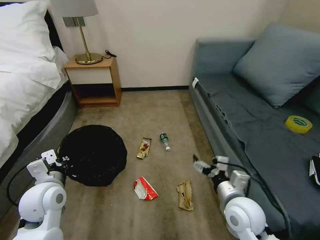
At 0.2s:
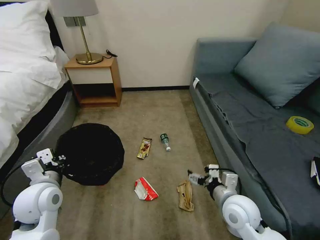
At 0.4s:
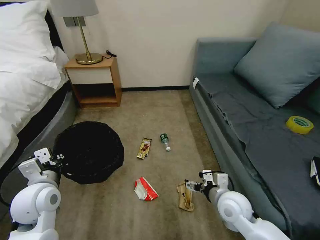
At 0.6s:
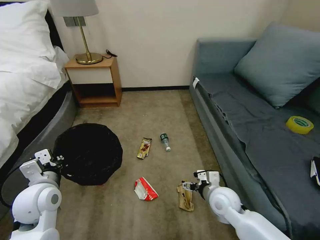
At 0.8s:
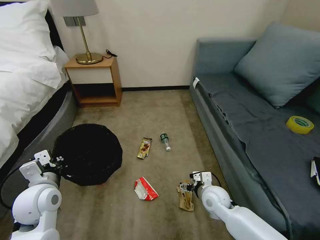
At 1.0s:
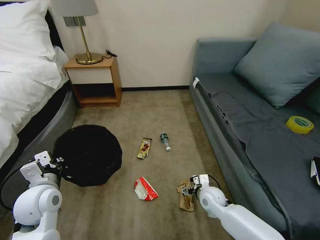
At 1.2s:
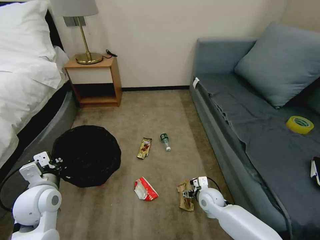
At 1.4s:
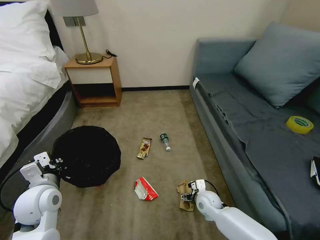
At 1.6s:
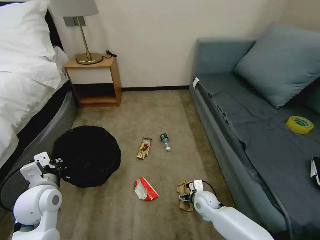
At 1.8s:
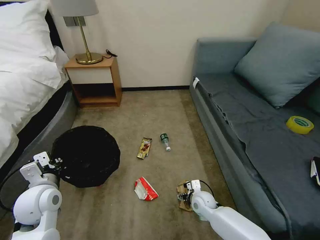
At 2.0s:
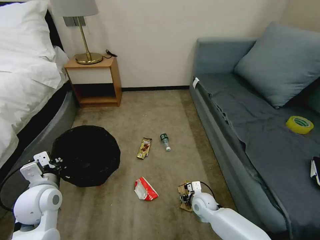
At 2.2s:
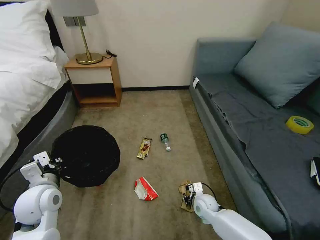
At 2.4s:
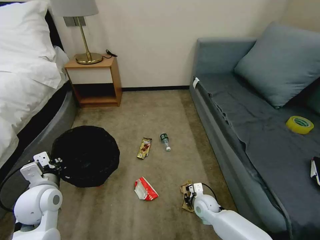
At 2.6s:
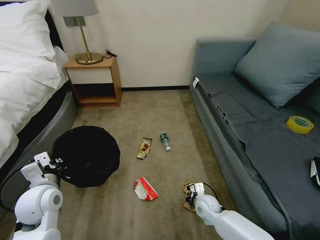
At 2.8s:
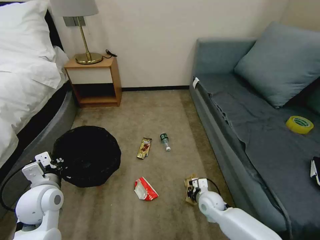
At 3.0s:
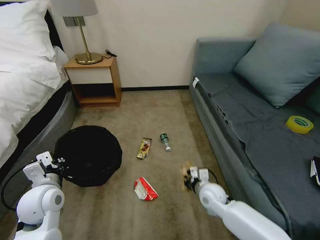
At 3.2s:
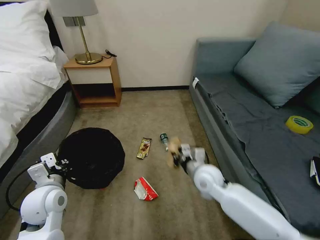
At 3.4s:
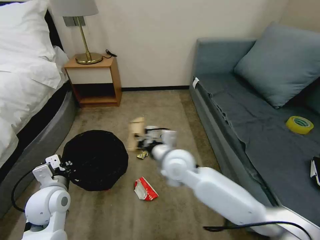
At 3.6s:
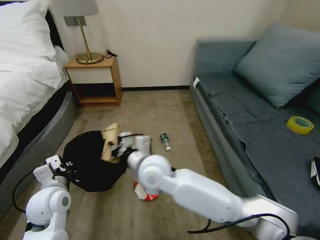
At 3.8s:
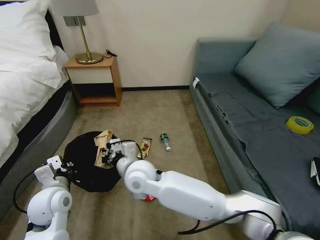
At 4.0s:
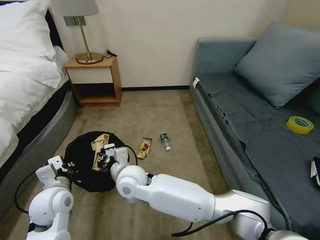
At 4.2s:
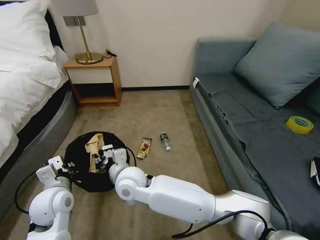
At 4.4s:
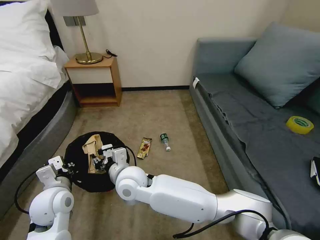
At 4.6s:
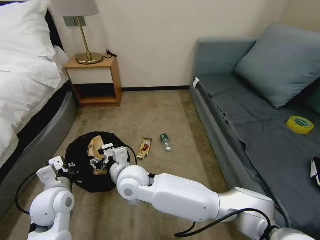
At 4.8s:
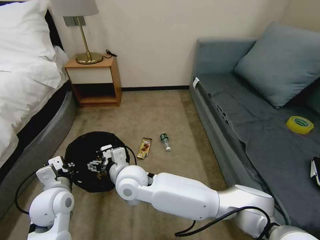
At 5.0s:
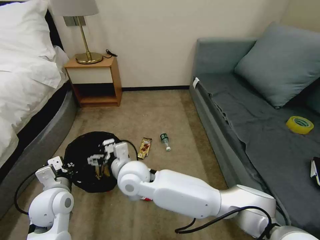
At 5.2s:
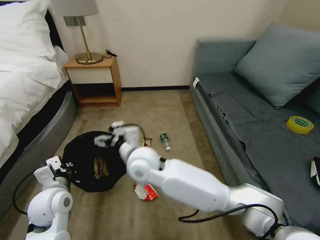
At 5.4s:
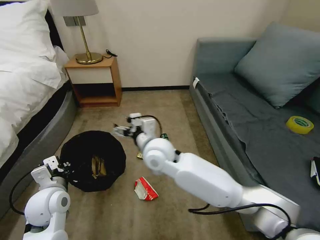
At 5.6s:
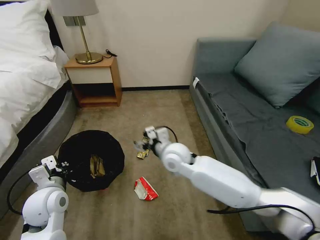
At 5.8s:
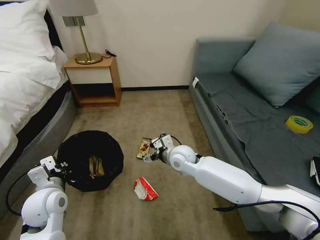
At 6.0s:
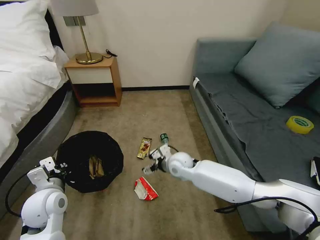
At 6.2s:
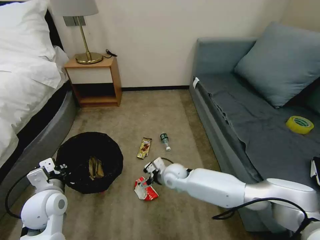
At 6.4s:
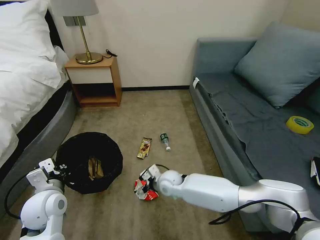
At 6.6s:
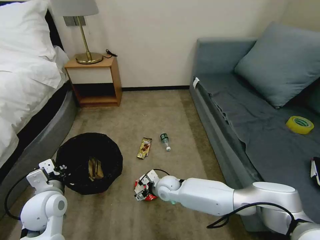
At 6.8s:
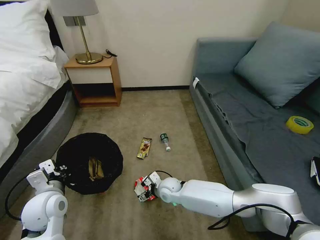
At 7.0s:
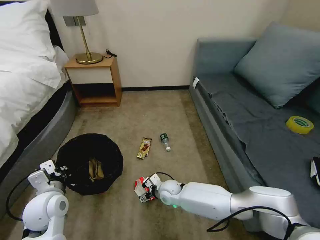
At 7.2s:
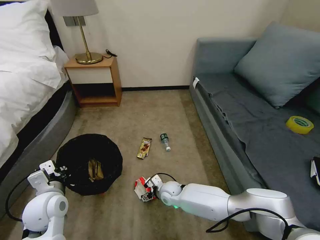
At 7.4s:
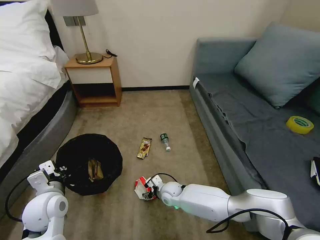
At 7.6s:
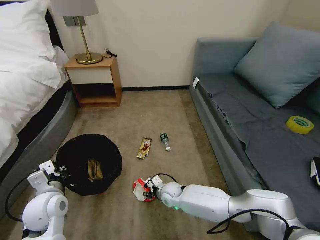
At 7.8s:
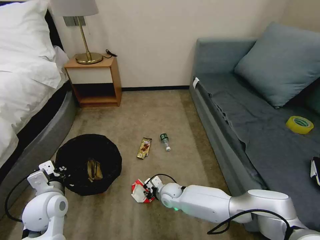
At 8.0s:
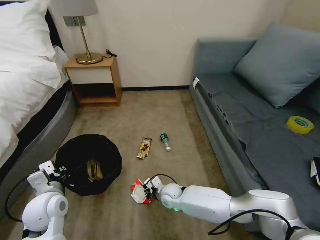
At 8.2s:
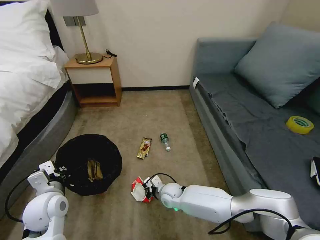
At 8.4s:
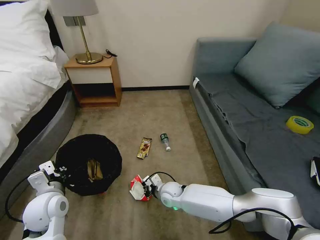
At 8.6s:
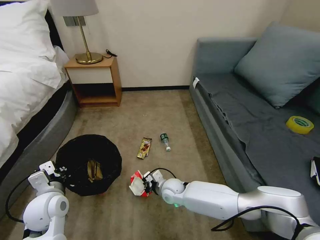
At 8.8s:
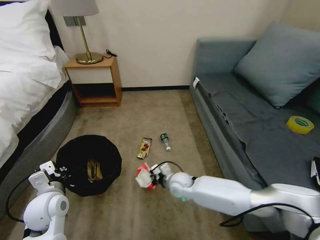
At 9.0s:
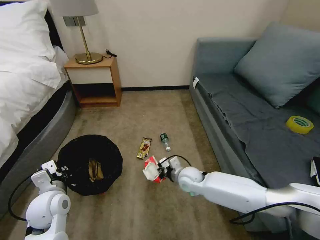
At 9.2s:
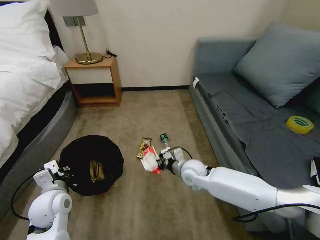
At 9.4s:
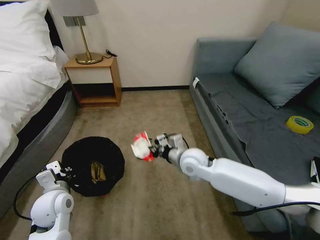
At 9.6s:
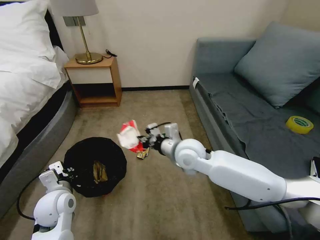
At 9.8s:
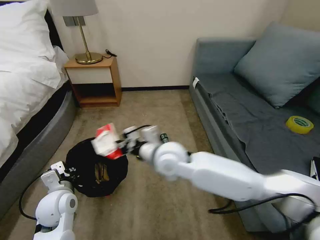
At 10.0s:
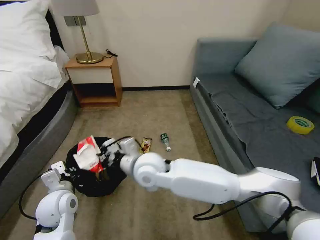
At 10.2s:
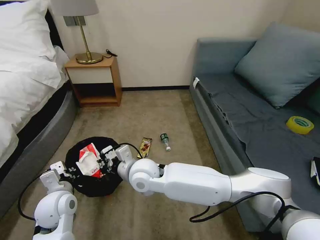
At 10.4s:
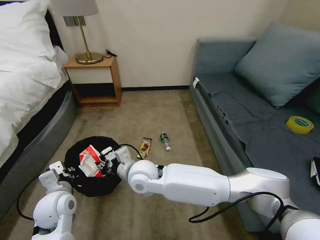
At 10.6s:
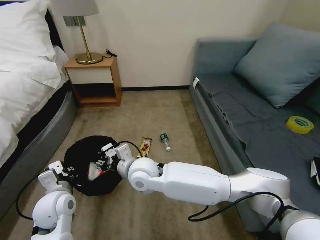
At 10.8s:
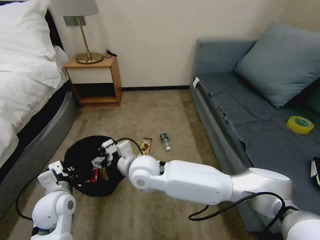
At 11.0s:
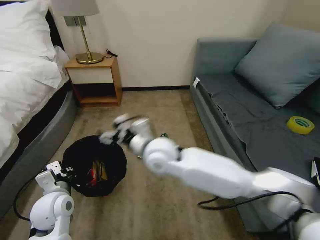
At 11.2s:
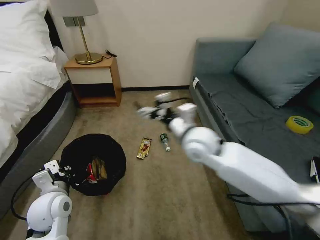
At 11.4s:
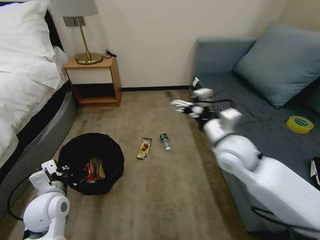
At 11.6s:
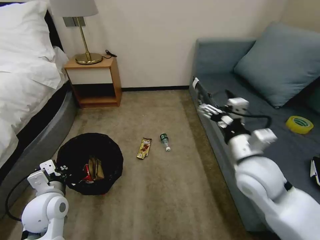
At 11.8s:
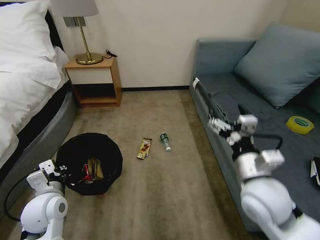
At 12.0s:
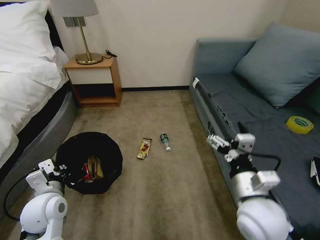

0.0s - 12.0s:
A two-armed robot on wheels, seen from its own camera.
Task of the whole recording: Pick up the trash bin, then pick up the garbage on the floor and place it into the trash bin.
0.0s - 1.6s: The right gripper shifts some 20 cm downward and forward.
1.6s - 3.0s: The right gripper heads upward, covering about 10 cm, and closes.
3.0s - 4.4s: The right gripper travels to the left and upward by some 30 cm, and opens.
4.4s - 6.0s: The right gripper heads to the right, forward and downward, covering some 20 cm, and opens its fingers.
6.0s - 7.6s: The right gripper is displaced downward by about 15 cm, and closes its fingers.
7.6s - 9.0s: The right gripper moves upward and to the right, roughly 10 cm, and closes its fingers.
9.0s - 10.4s: The right gripper is displaced to the left and upward by some 20 cm.
10.4s - 12.0s: The right gripper heads to the right and backward, covering about 30 cm, and opens up.

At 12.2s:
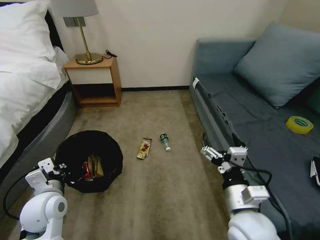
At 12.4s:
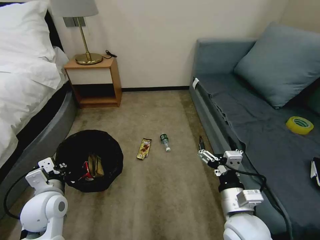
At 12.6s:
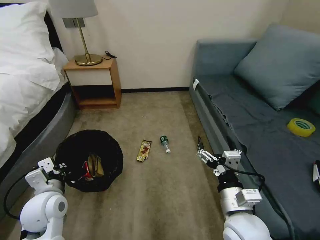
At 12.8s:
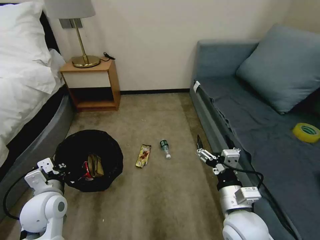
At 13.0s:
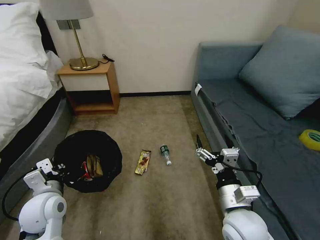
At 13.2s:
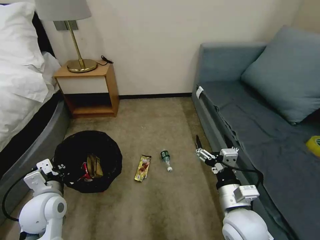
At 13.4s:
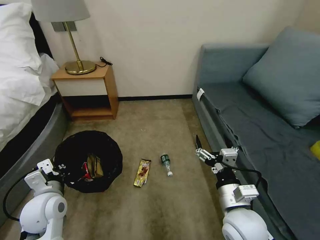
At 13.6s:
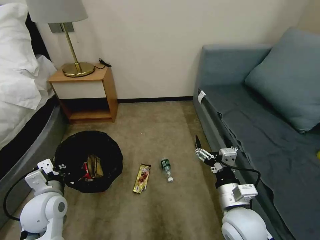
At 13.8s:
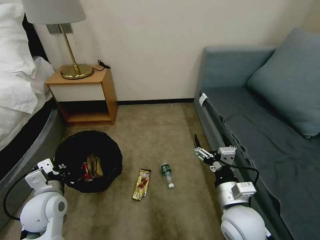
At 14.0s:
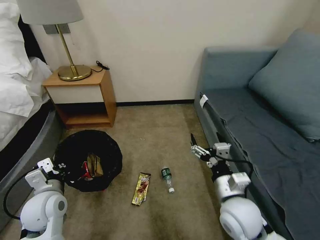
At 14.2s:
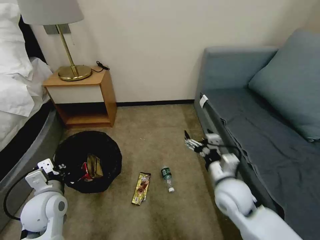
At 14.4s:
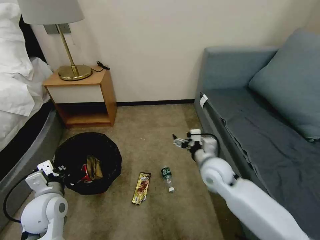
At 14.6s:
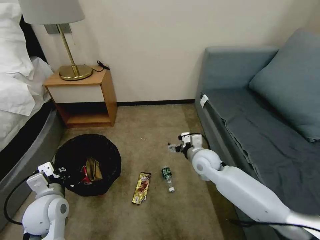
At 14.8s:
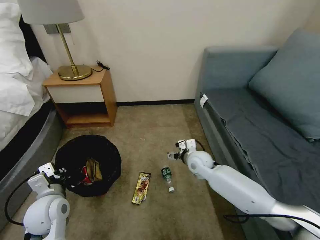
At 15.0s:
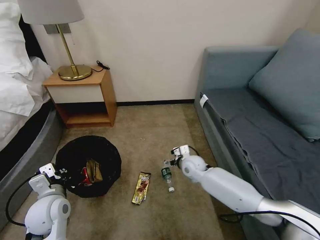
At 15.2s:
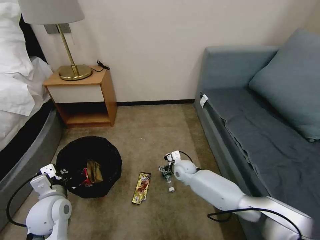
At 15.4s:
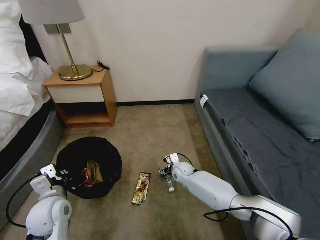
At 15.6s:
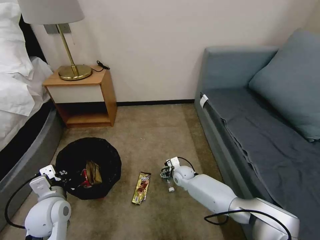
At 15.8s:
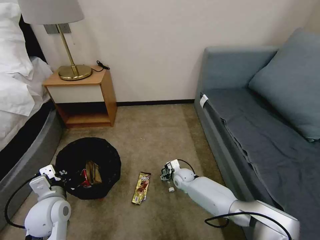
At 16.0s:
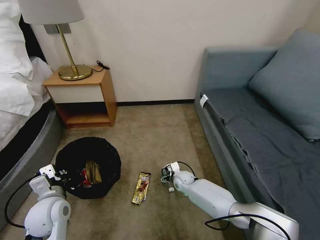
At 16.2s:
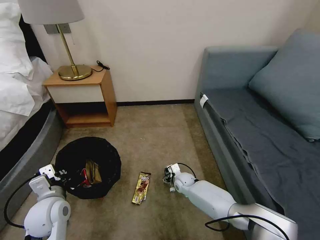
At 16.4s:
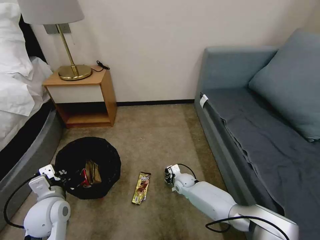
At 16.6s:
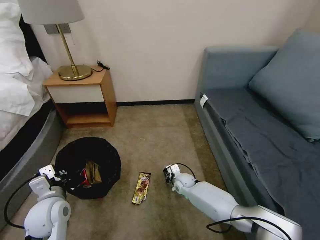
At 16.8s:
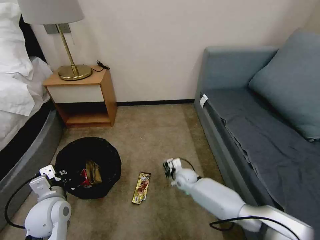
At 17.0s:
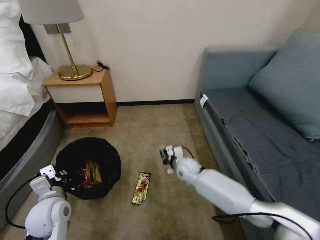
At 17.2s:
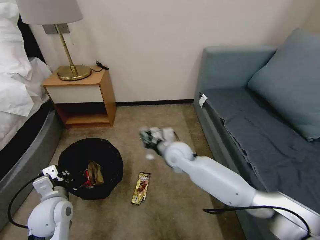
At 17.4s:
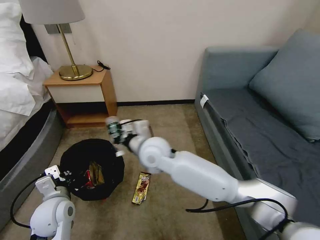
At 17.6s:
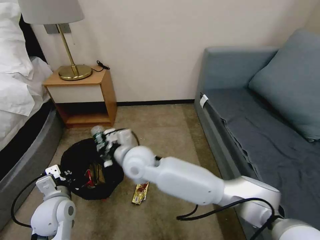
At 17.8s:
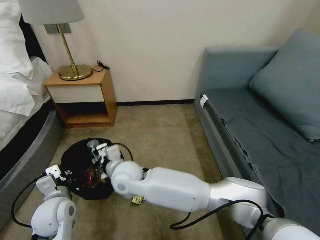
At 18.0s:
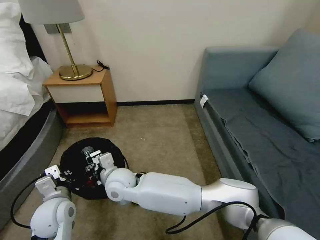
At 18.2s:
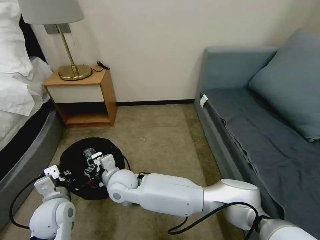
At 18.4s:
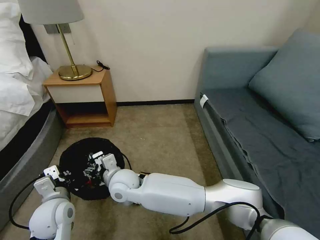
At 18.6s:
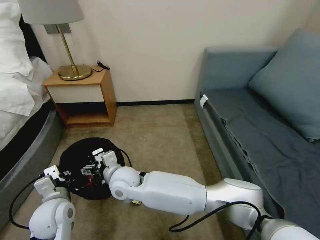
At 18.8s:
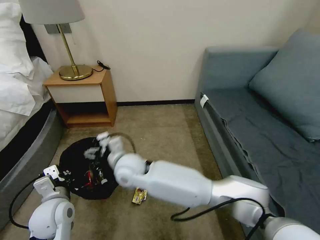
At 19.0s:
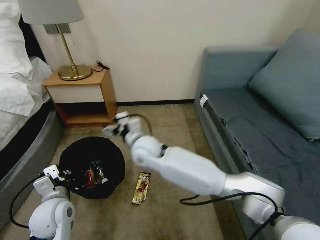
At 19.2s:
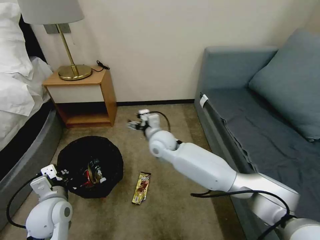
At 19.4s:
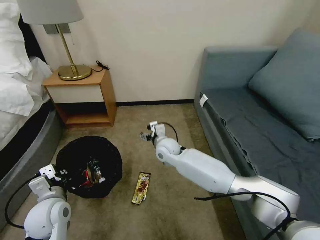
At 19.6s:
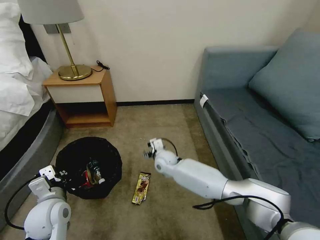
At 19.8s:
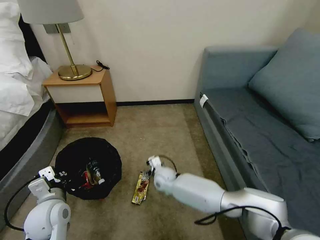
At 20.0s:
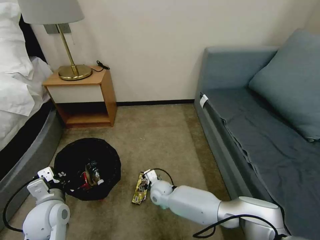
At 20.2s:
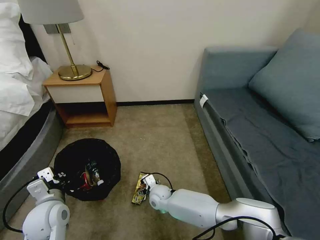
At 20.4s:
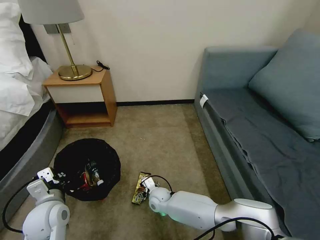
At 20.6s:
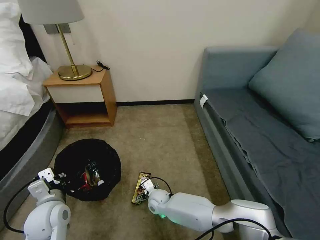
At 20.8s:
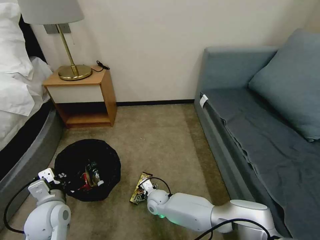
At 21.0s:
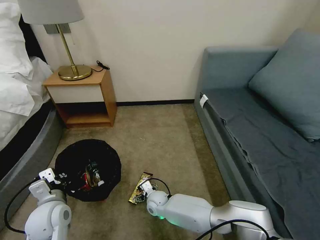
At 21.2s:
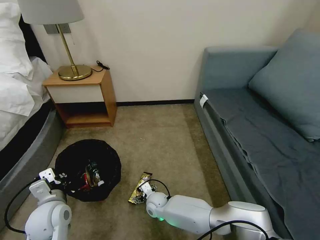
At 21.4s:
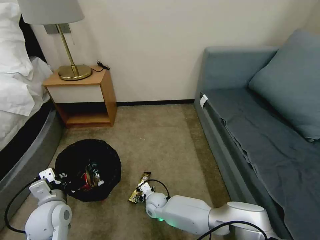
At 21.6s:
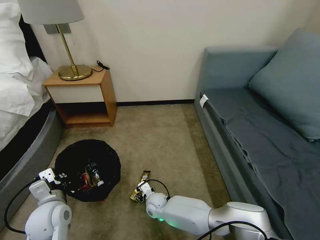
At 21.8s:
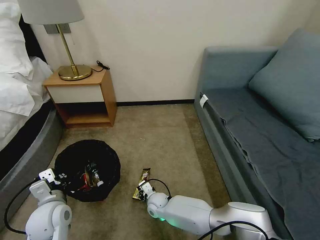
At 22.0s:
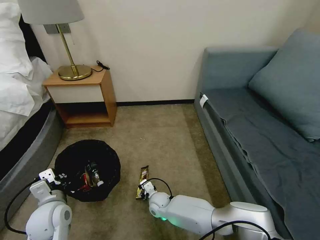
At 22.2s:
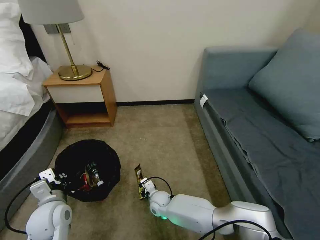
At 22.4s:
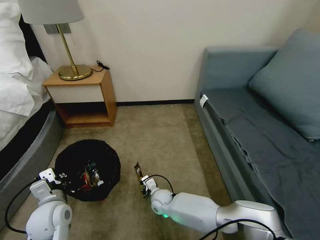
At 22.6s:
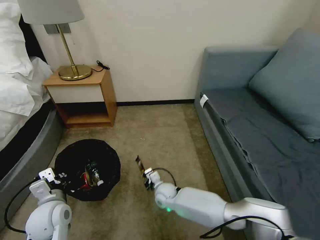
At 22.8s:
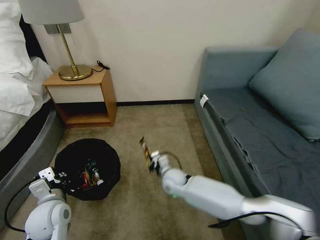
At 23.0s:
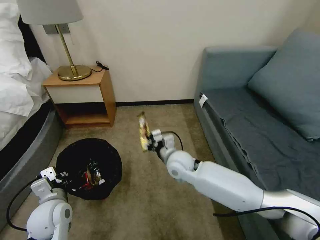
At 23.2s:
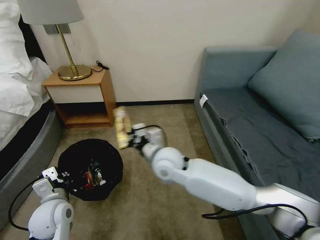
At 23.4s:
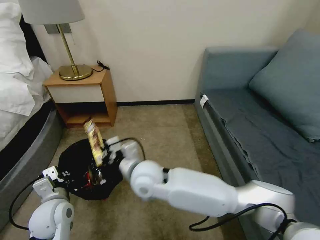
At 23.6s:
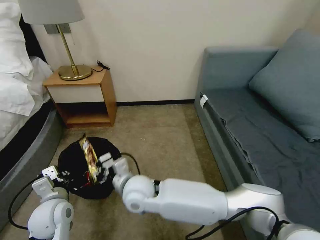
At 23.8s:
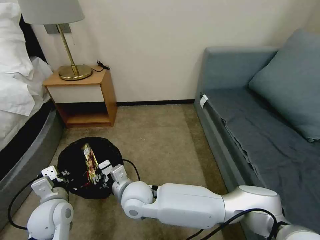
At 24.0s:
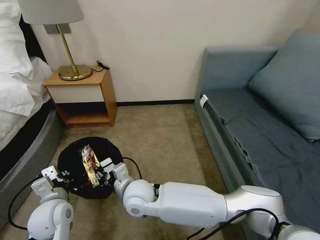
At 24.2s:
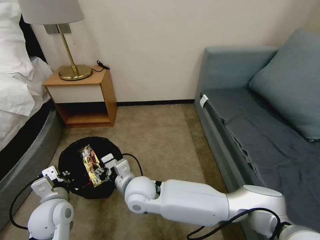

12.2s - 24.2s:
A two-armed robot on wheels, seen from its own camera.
Task of the whole recording: Pick up the trash bin, then pick up the garbage on the floor and place it into the trash bin.
13.8s - 15.2s: The right gripper moves forward and downward, roughly 30 cm.
15.2s - 16.6s: The right gripper goes about 5 cm downward, and closes up.
16.6s - 18.2s: The right gripper travels to the left, upward and backward by some 35 cm.
18.2s - 19.8s: The right gripper heads downward, to the right and forward, covering approximately 25 cm, and opens.
19.8s - 21.2s: The right gripper heads backward and downward, covering roughly 10 cm.
21.2s - 22.6s: The right gripper closes up.
22.6s - 24.2s: The right gripper shifts approximately 25 cm upward, and opens up.
